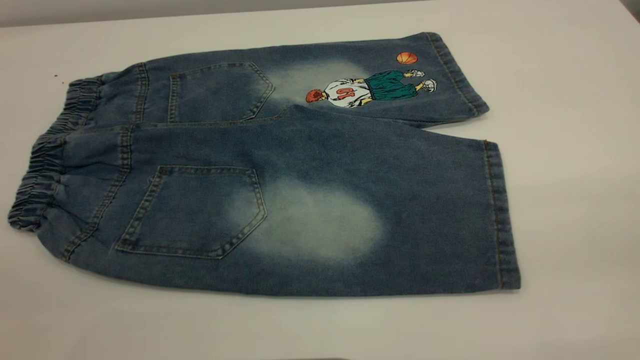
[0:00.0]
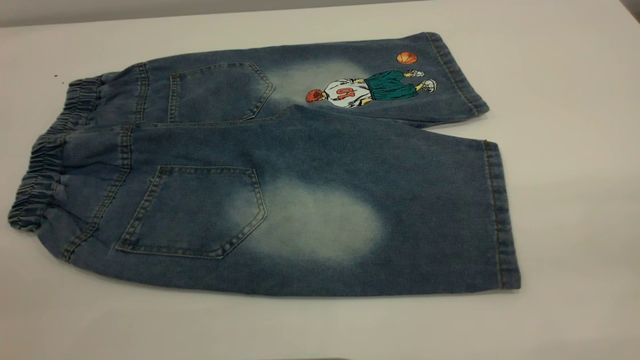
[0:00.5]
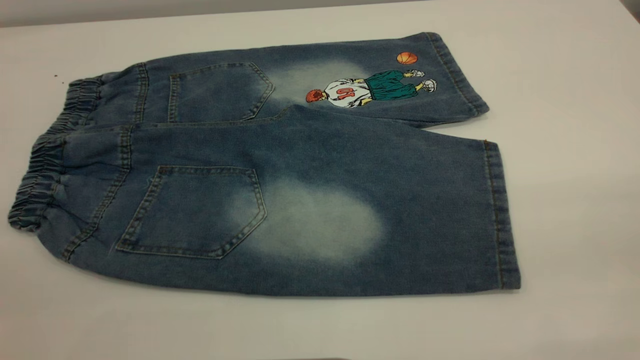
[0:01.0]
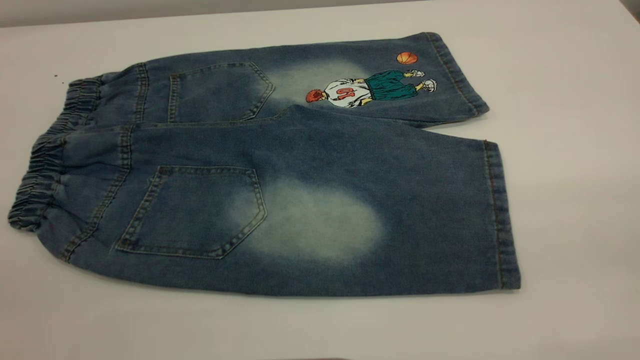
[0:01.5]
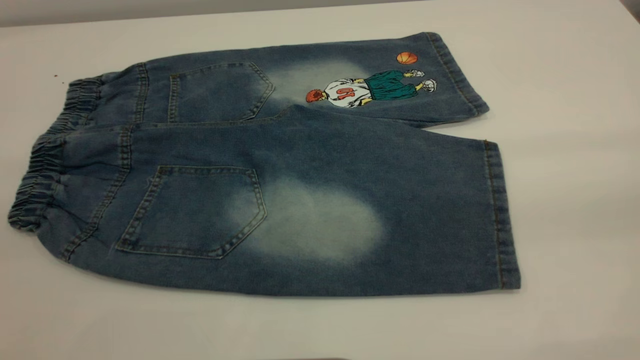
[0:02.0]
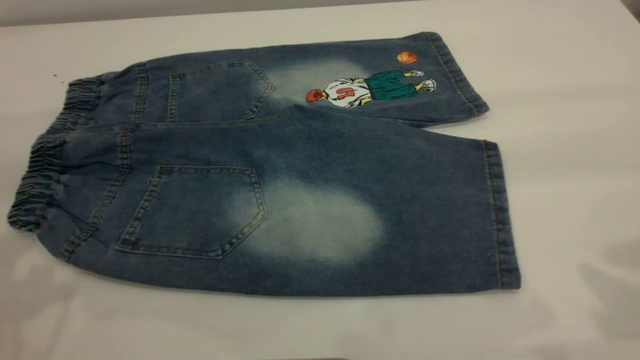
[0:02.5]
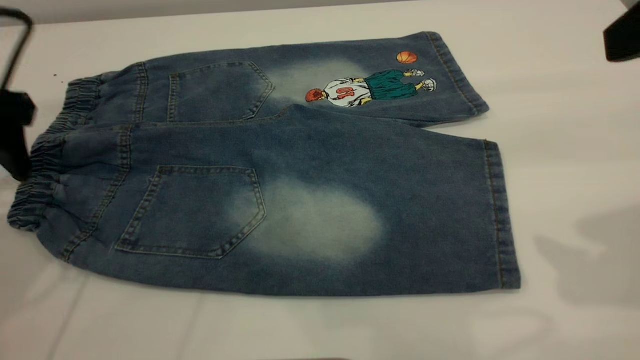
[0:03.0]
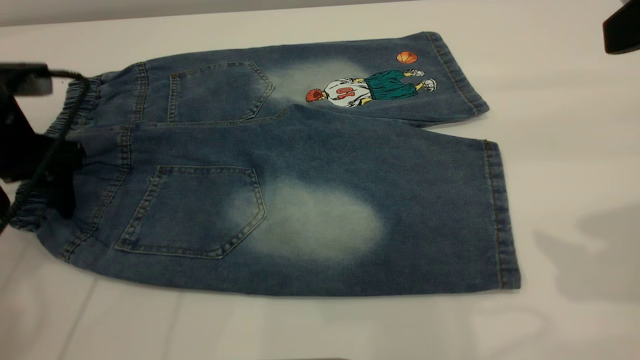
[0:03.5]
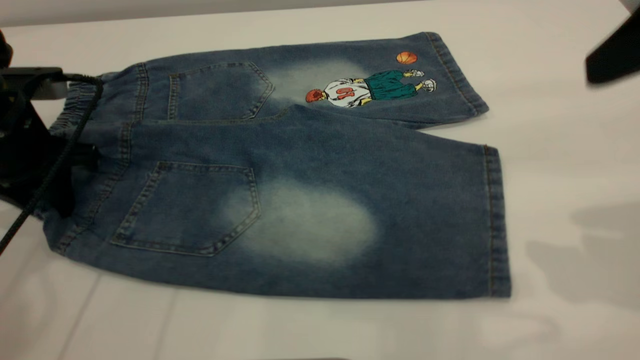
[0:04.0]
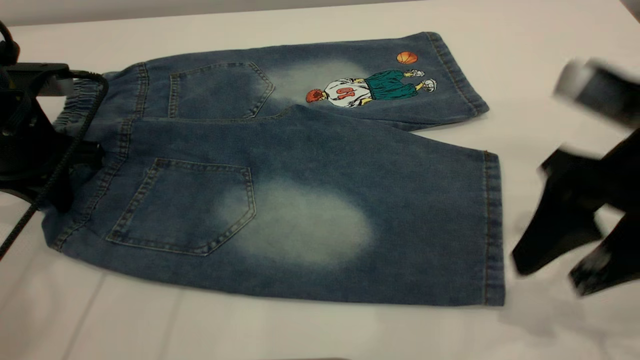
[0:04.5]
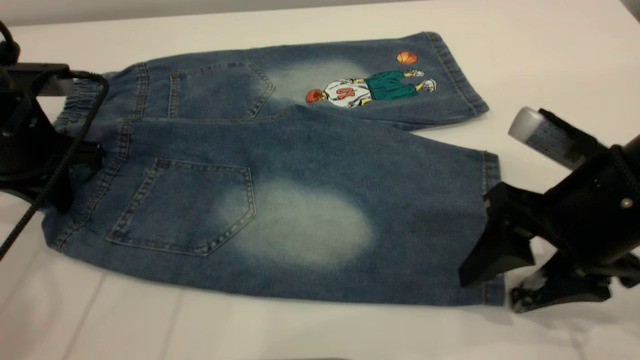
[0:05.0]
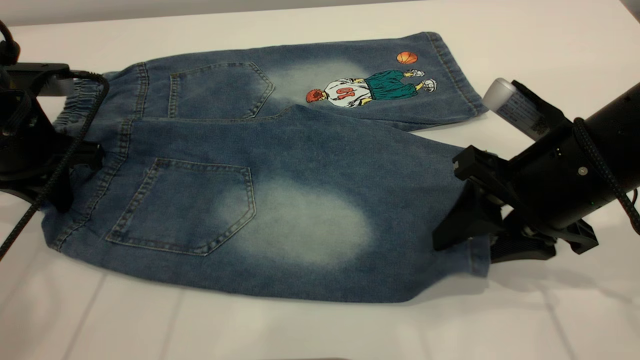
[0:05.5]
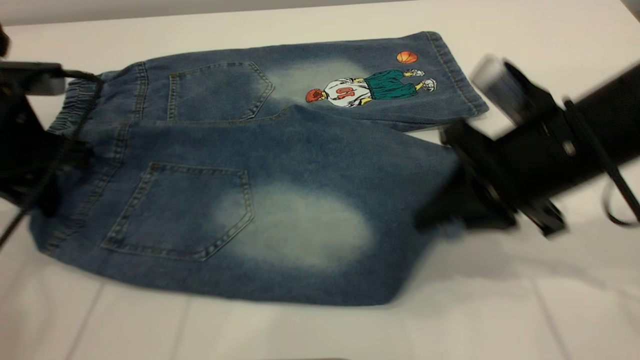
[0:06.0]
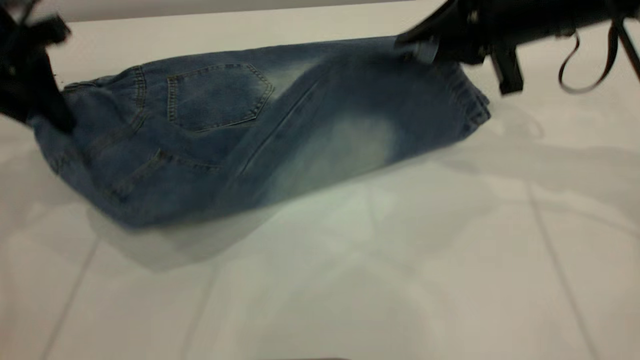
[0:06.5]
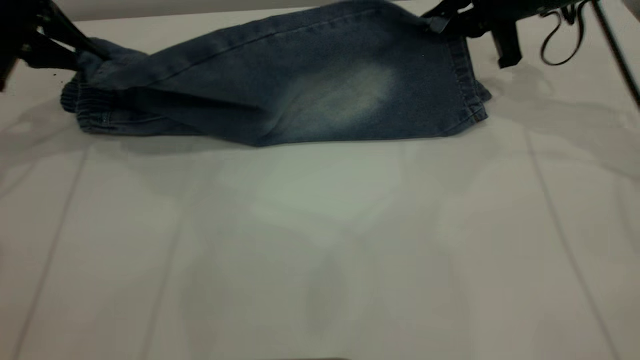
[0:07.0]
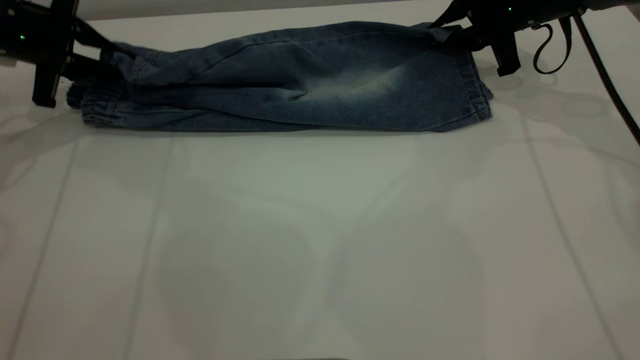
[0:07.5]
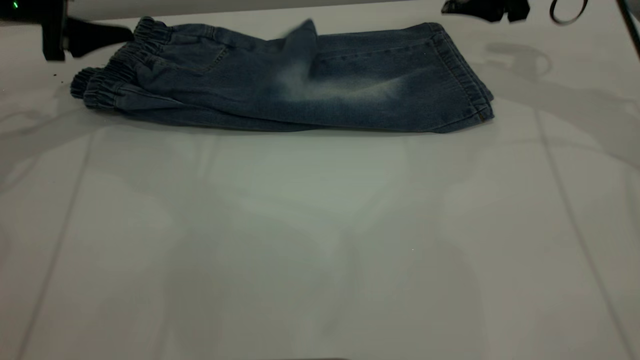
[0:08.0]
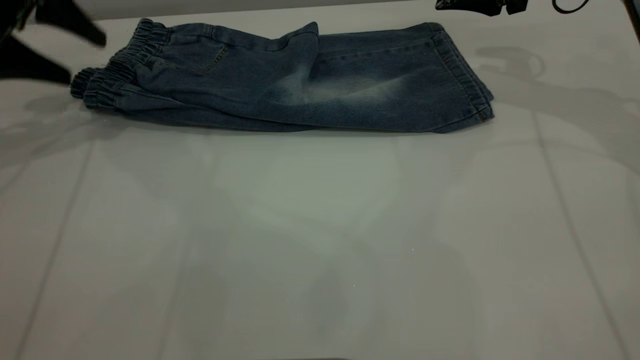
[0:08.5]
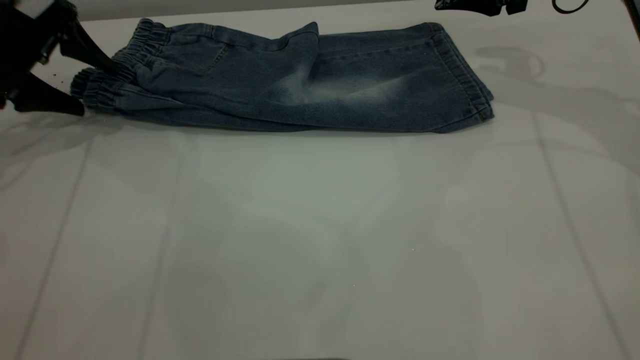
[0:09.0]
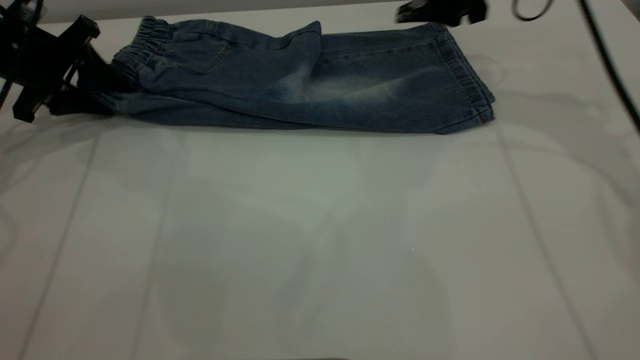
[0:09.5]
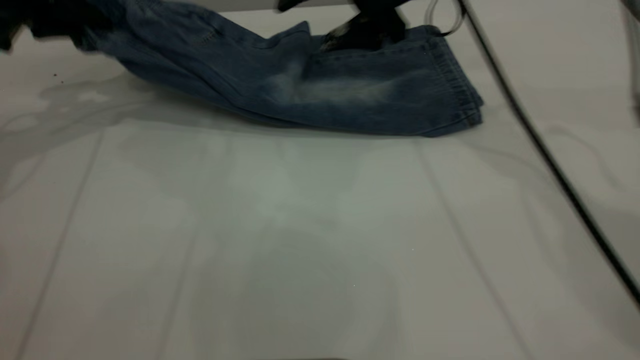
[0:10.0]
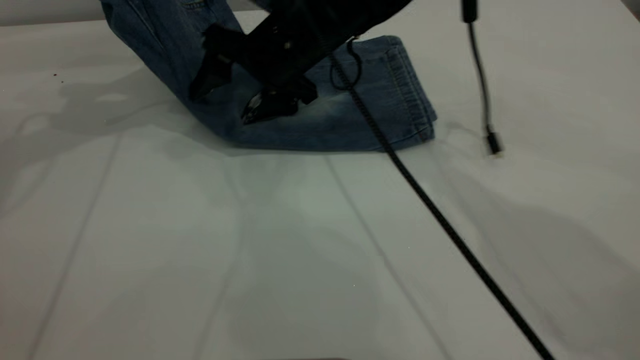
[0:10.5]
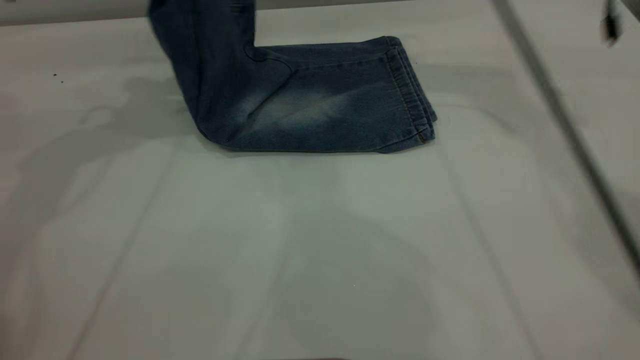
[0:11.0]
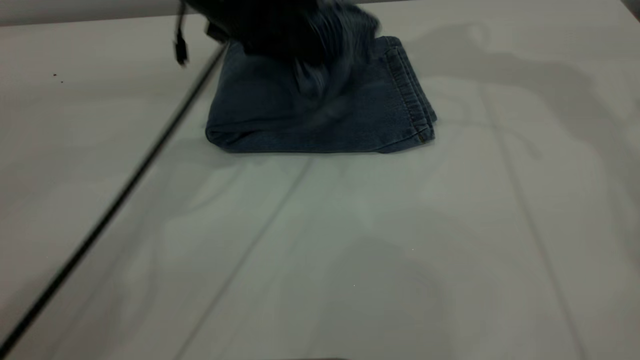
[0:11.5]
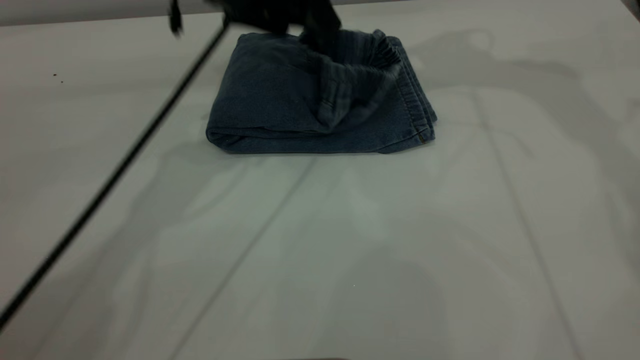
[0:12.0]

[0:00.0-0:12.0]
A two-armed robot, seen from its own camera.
Step, 0:00.0 to 0:08.0: Fold the bottom of the pants upward.
0:02.0 to 0:04.0: The right gripper heads forward and downward, covering roughly 15 cm, while the left gripper heads forward and downward, covering some 35 cm, and closes.
0:04.0 to 0:06.0: The right gripper goes approximately 15 cm downward, to the left and forward, and closes its fingers.
0:06.0 to 0:08.0: The left gripper heads forward, covering some 15 cm, and opens its fingers. Meanwhile the right gripper heads forward, covering roughly 20 cm, and opens up.
0:08.0 to 0:10.0: The right gripper heads to the left, covering roughly 15 cm. The left gripper closes its fingers.
0:10.0 to 0:12.0: The right gripper is displaced upward and to the right by about 20 cm, while the left gripper goes about 25 cm to the right, and opens its fingers.

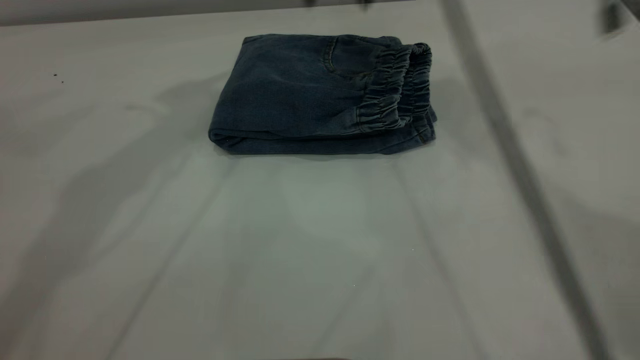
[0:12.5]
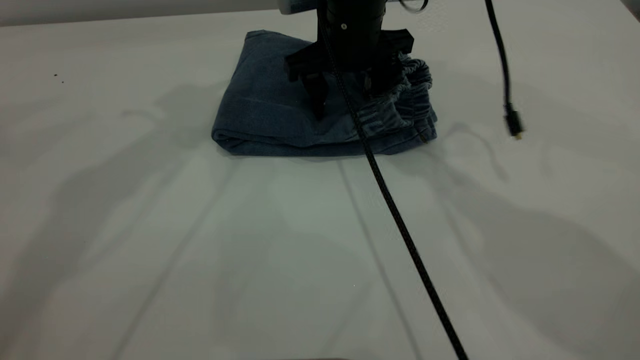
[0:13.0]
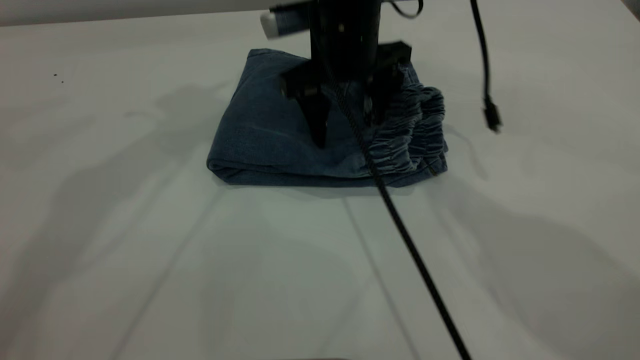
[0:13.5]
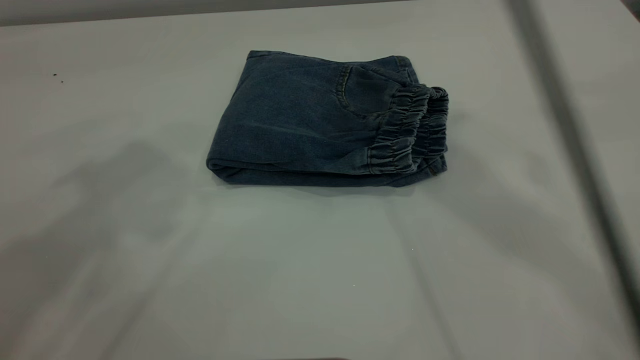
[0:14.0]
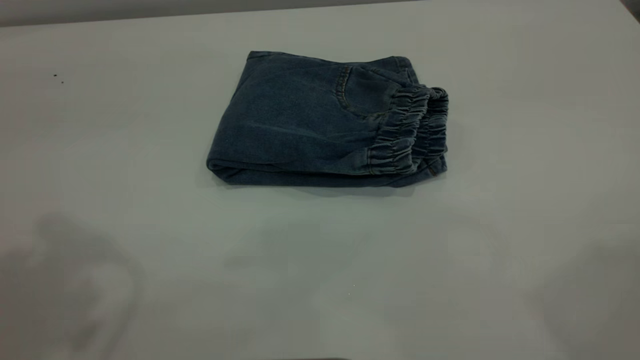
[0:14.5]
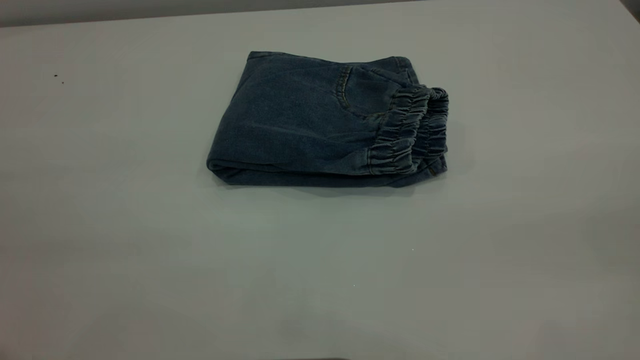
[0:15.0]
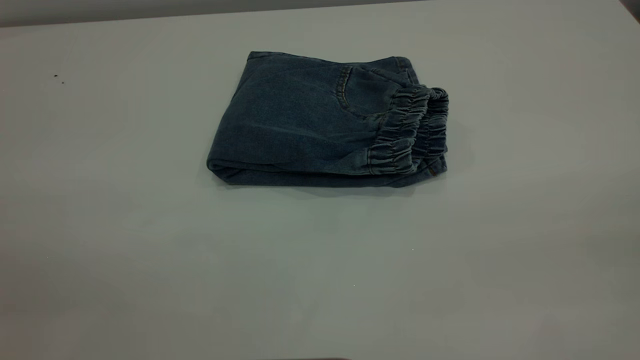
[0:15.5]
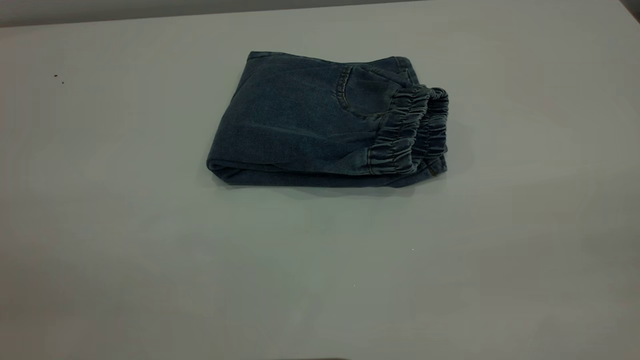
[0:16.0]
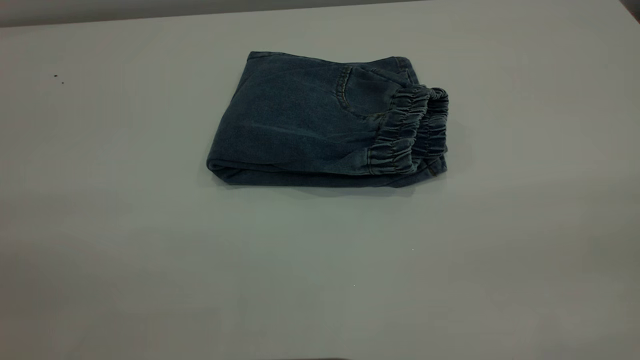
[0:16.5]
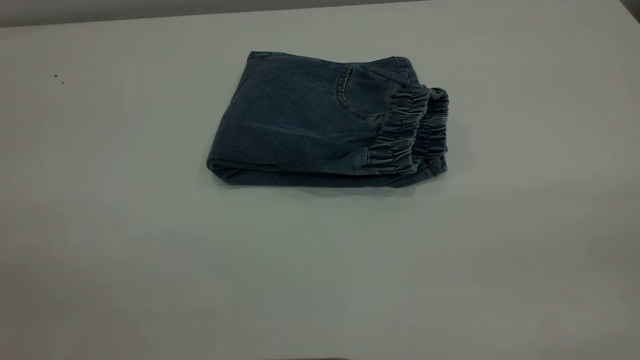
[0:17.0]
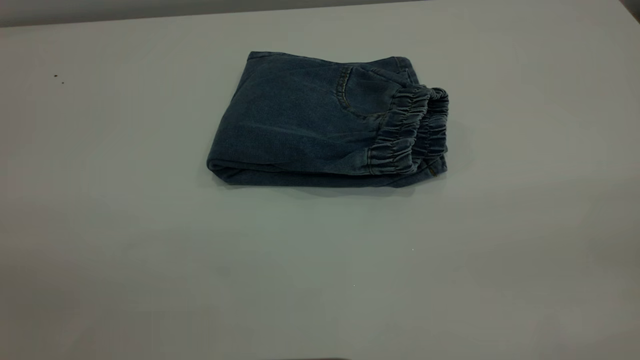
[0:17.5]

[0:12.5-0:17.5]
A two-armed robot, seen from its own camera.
0:12.5 to 0:15.0: The left gripper travels backward by about 30 cm, while the right gripper goes approximately 50 cm backward and to the right.

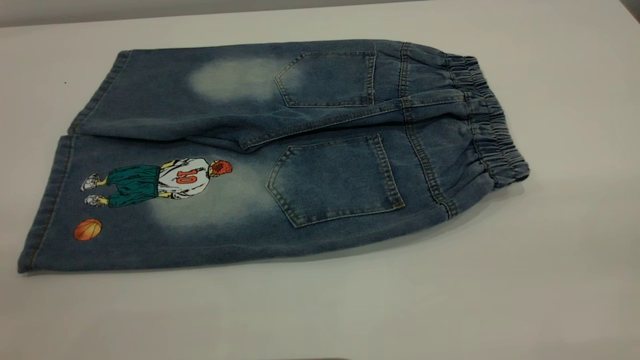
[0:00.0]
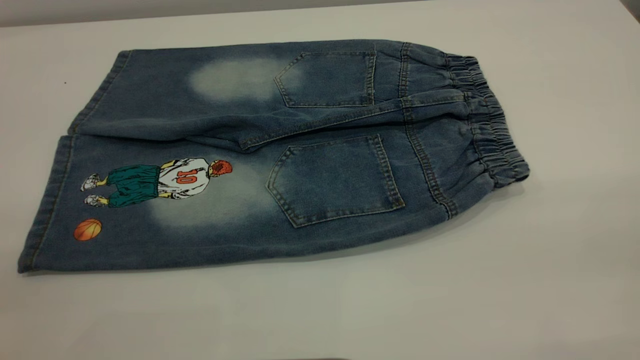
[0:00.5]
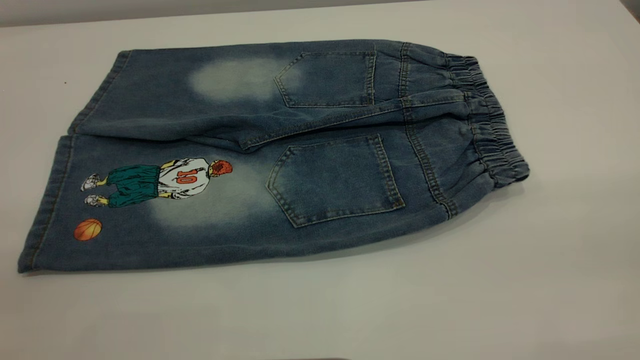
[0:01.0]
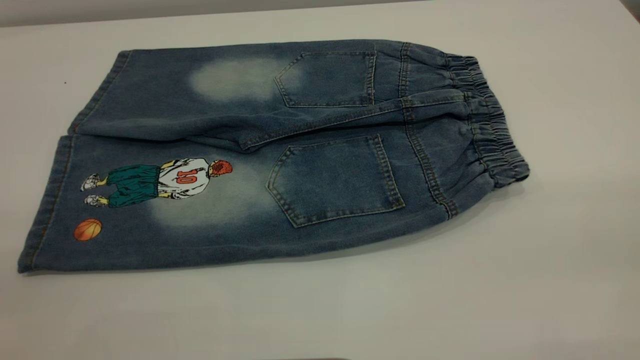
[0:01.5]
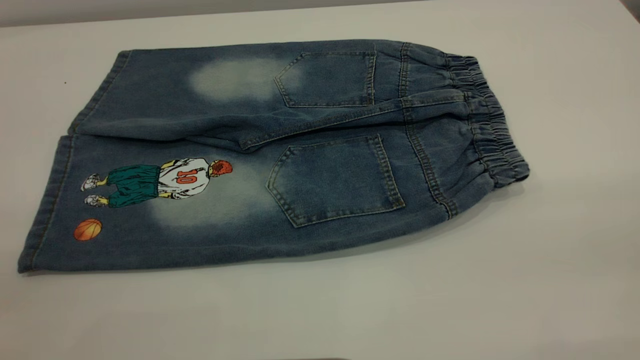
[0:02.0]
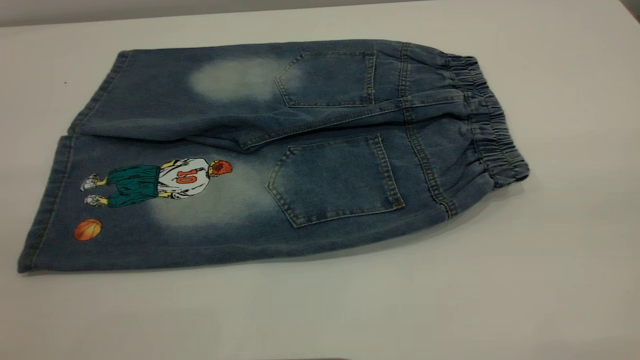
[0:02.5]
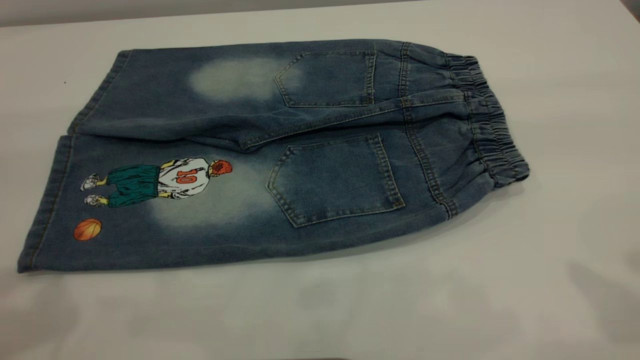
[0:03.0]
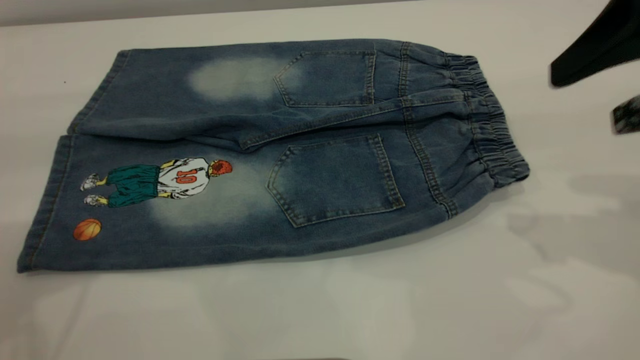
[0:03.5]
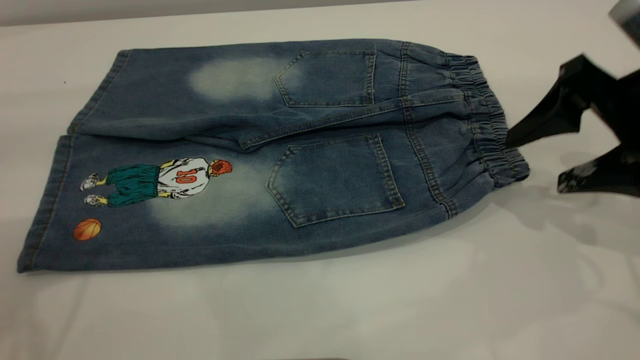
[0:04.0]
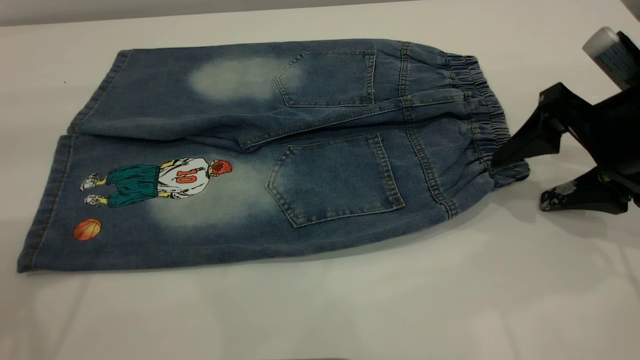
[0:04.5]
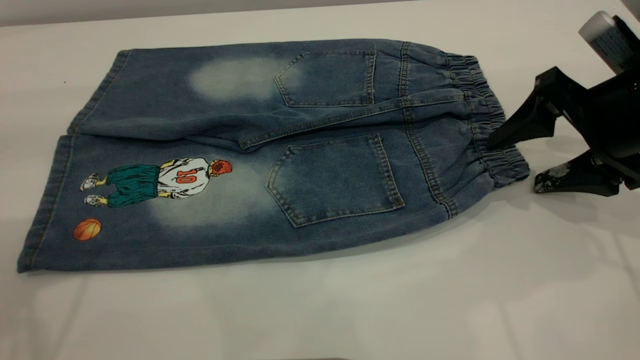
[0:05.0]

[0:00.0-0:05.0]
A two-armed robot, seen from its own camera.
0:02.5 to 0:05.0: The right gripper is displaced downward and forward by roughly 35 cm.
